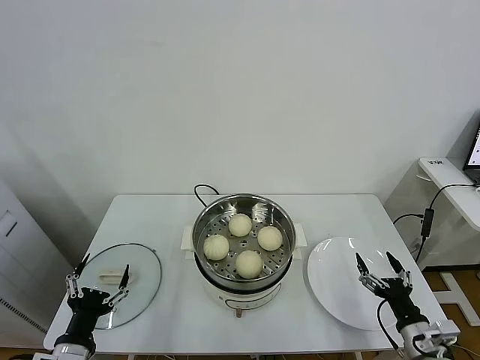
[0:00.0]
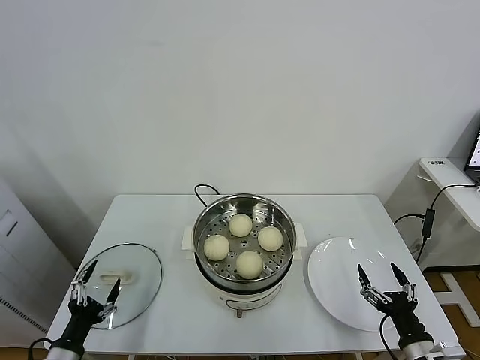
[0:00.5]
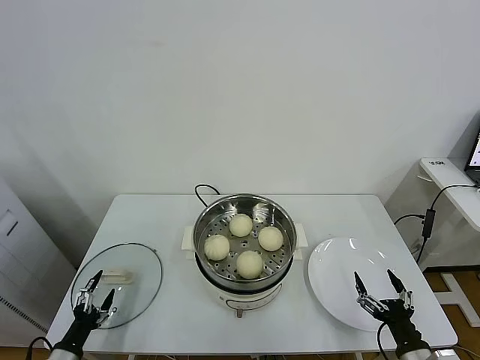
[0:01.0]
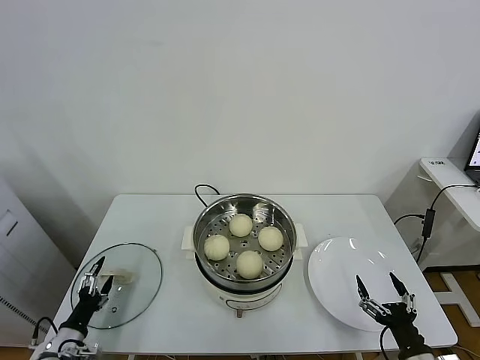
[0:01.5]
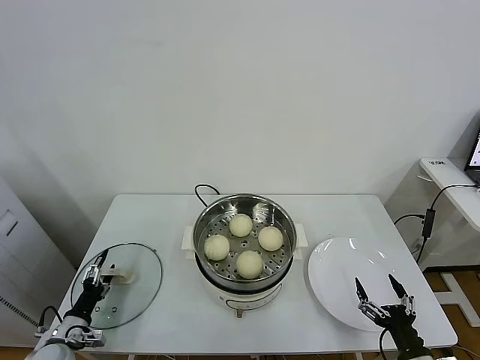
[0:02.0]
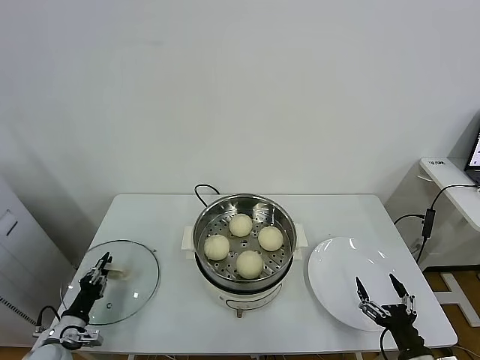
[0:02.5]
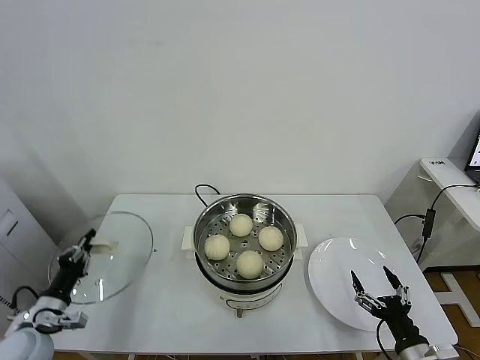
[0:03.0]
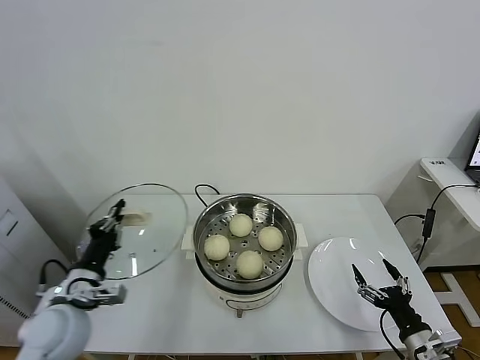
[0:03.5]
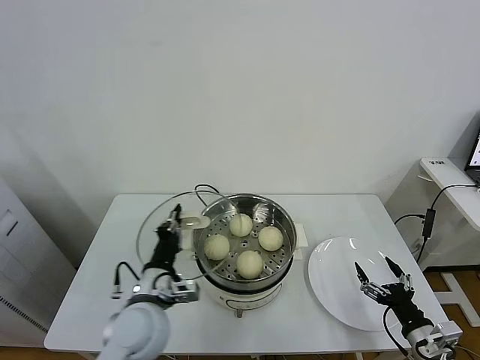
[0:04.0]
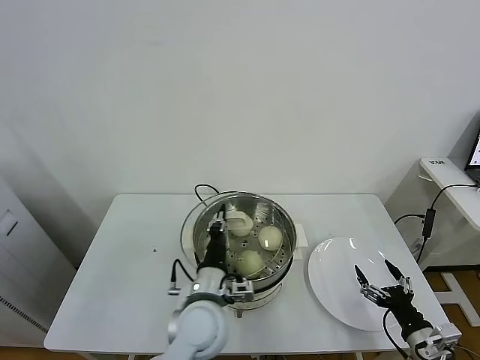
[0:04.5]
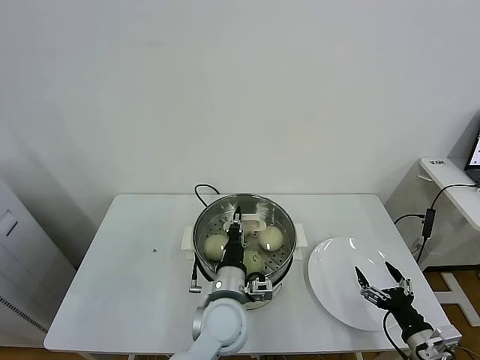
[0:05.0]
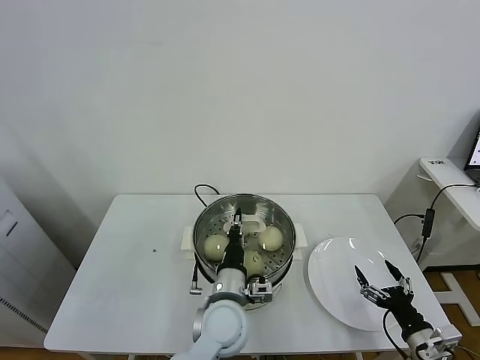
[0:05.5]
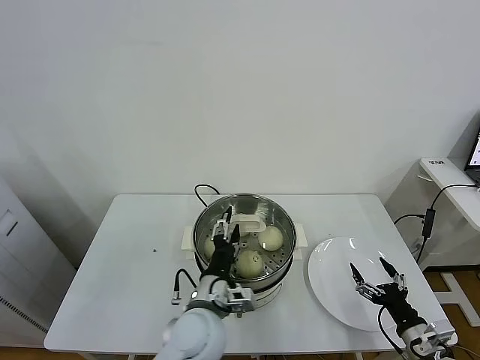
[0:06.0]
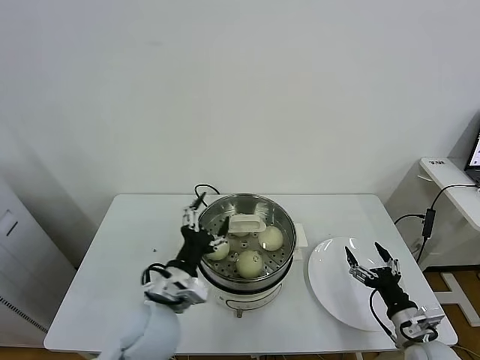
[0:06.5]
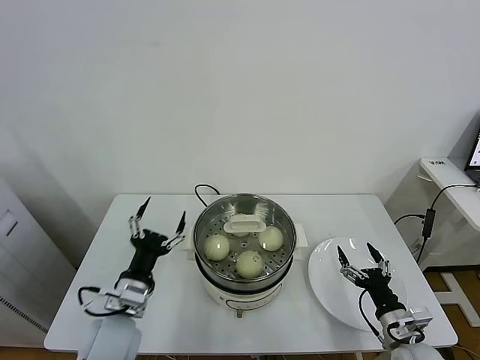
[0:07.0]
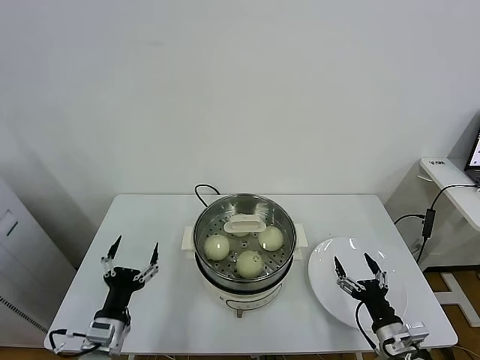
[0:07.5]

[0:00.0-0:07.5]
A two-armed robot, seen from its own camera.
Task of the whole recording: take steamed baozi put them in steamer.
Step, 0:00.0 to 0:02.5: Grasp the pot lid with left gripper.
Step, 0:03.0 to 0:06.0: Place the pot lid on the steamer with left gripper.
0:00.0 to 0:02.0: The right gripper travels backward by approximately 5 cm. Meanwhile the left gripper is displaced downward, to the left and forward by roughly 20 cm.
0:02.0 to 0:04.0: The right gripper goes some 5 cm forward. Meanwhile the left gripper heads to the right and upward, covering roughly 30 cm, and closes its fingers.
0:04.0 to 0:05.5: The left gripper moves to the right, some 15 cm.
0:05.5 to 0:07.5: The left gripper goes approximately 25 cm to the left, and opens; the right gripper travels to the left by about 5 cm.
